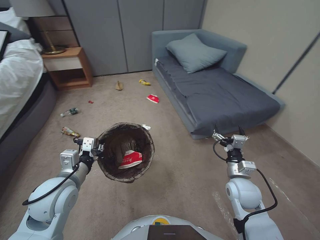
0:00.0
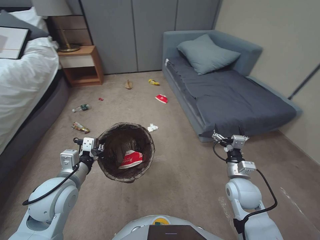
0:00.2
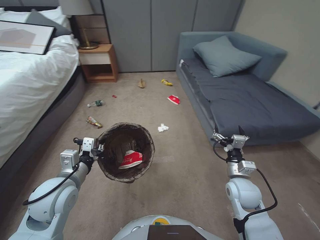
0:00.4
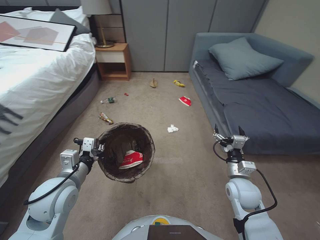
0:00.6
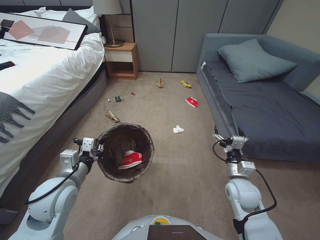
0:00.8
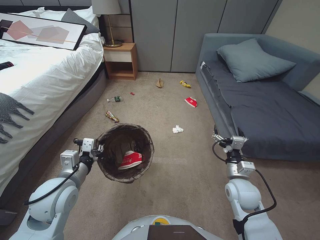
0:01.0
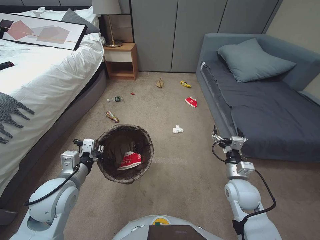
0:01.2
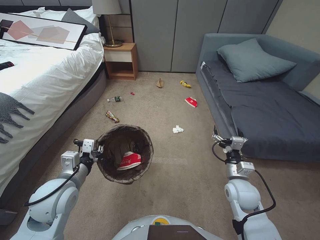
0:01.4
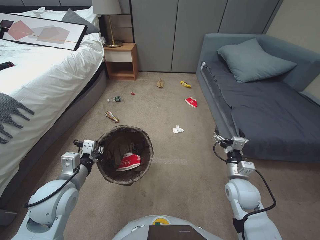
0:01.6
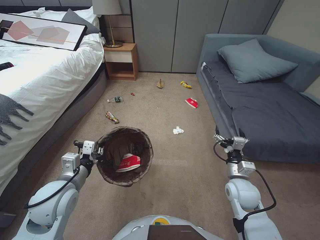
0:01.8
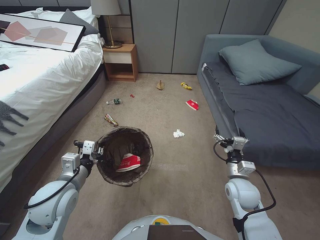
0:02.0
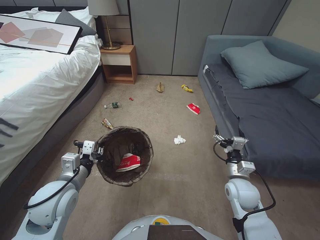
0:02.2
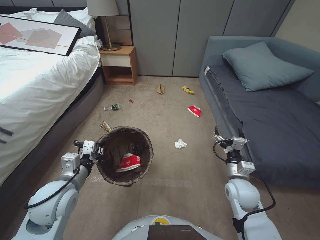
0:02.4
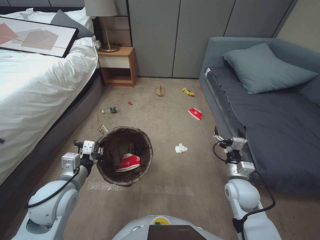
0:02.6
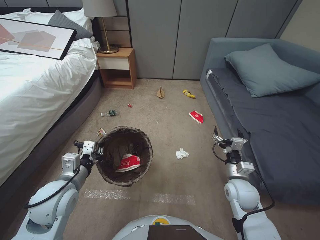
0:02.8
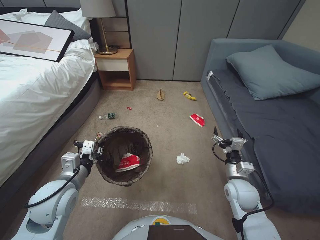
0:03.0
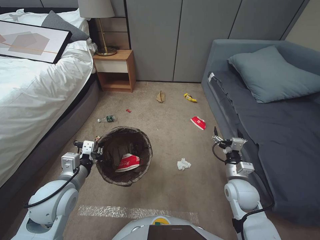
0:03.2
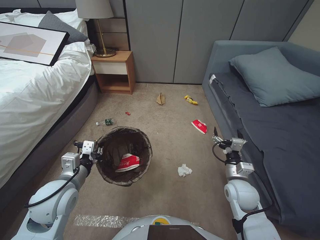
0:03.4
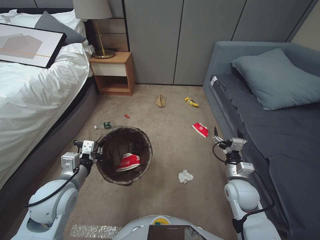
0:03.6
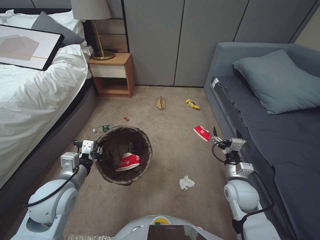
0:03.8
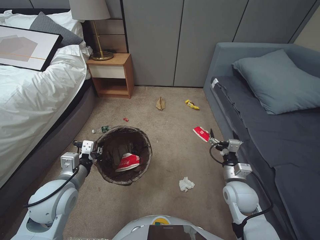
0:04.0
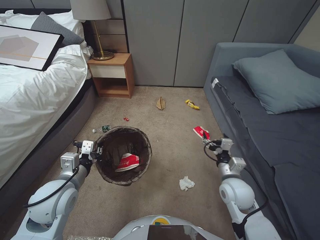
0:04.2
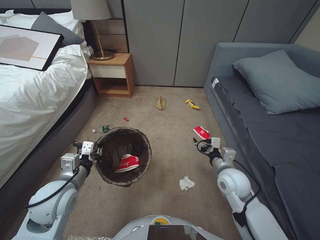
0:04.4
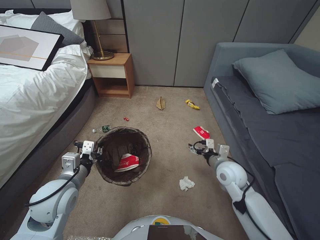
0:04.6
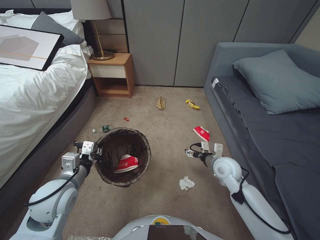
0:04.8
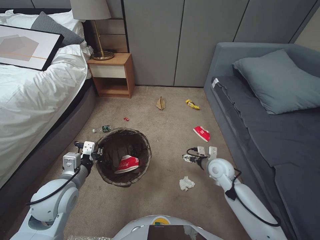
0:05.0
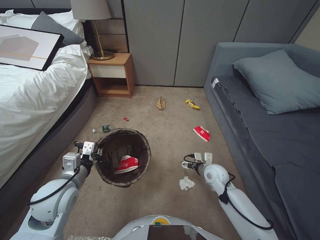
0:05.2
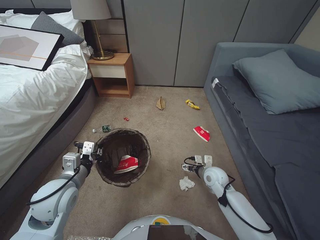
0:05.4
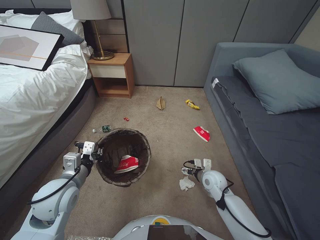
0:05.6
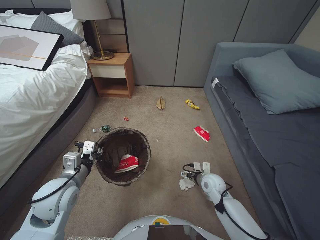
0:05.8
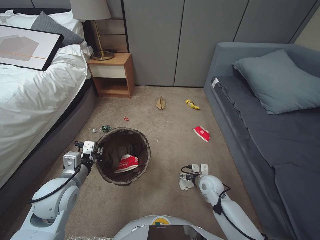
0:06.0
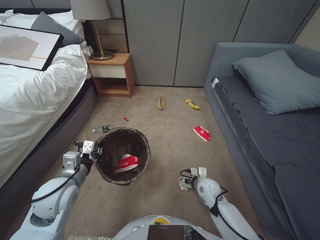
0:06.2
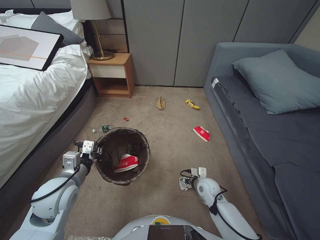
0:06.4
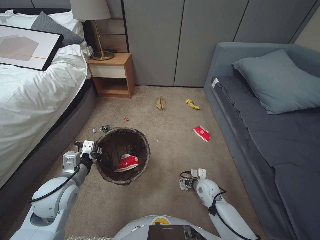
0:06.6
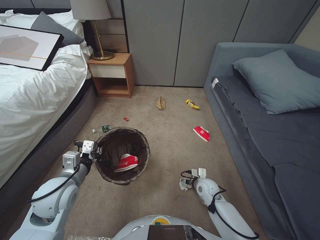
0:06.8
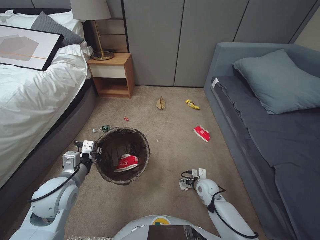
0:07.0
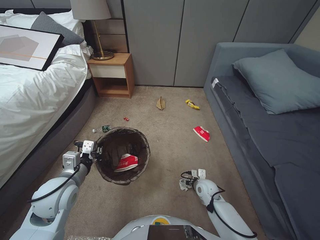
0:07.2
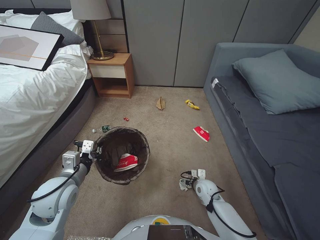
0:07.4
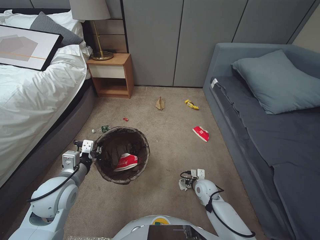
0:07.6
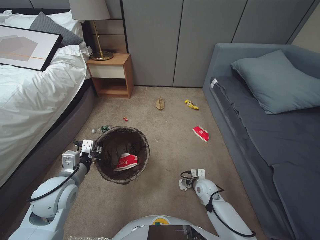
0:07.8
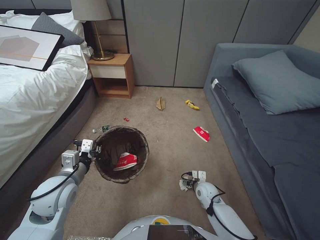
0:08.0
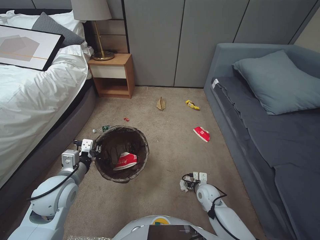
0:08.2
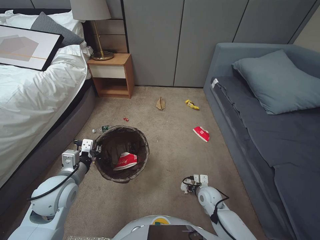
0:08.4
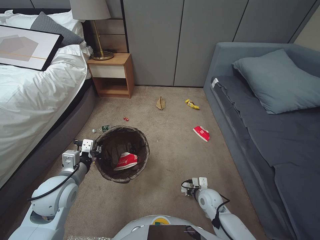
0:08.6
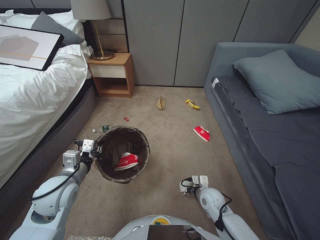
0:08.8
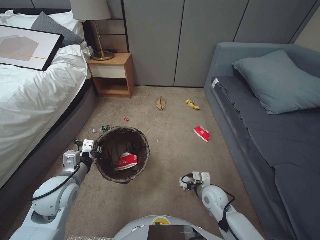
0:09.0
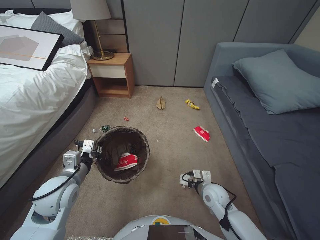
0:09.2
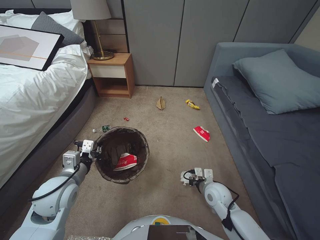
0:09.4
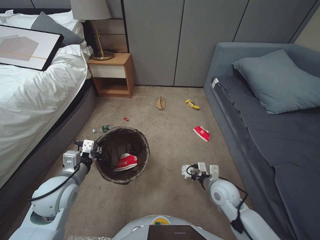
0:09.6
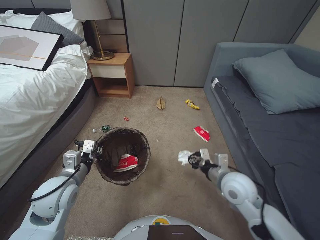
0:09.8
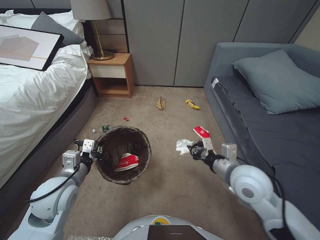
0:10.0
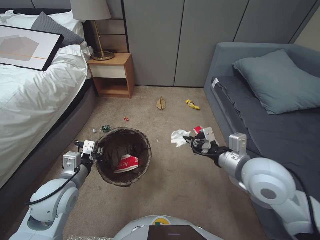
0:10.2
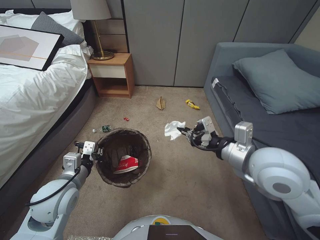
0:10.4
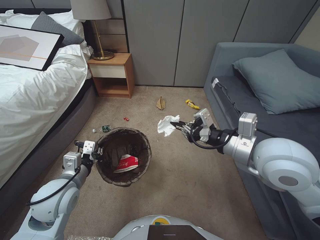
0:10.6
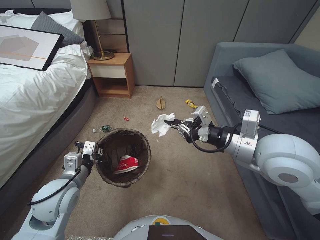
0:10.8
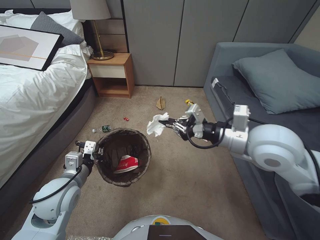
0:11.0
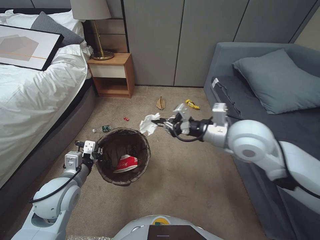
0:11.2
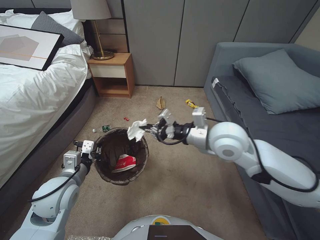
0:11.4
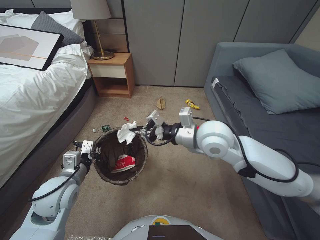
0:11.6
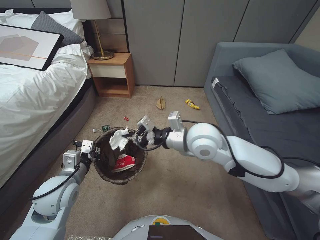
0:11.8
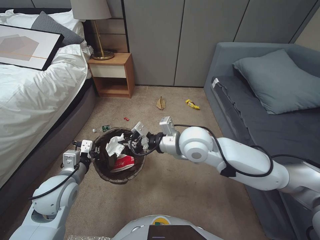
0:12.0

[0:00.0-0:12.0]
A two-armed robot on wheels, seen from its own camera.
Task of the whole recording: Pick up the trash bin, then pick up the garbage from the floor and place it into the trash bin.
0:03.0 to 0:04.4: The right gripper ends up approximately 5 cm from where it was.
0:04.4 to 0:06.0: The right gripper travels downward by about 15 cm.
0:06.0 to 0:07.6: The right gripper moves downward, some 5 cm.
0:07.6 to 0:09.0: The right gripper heads upward, covering about 5 cm, and closes up.
0:09.0 to 0:10.4: The right gripper moves upward, some 30 cm.
0:10.4 to 0:12.0: The right gripper shifts roughly 15 cm to the left and forward.

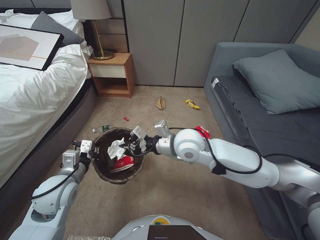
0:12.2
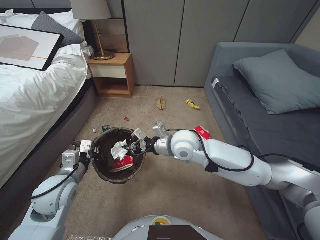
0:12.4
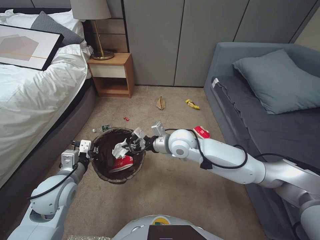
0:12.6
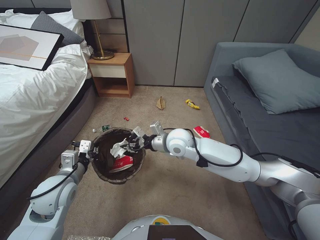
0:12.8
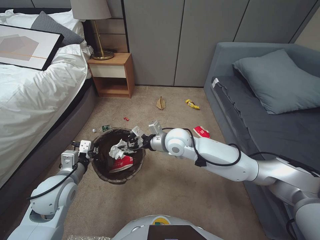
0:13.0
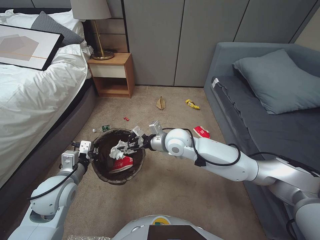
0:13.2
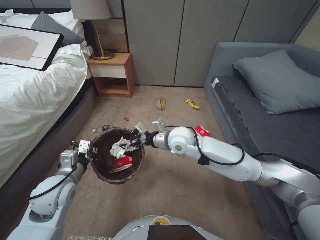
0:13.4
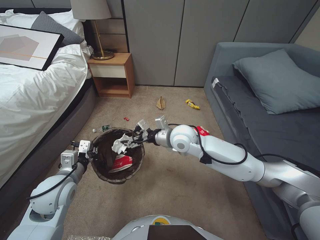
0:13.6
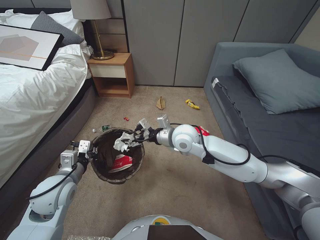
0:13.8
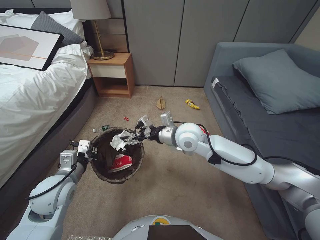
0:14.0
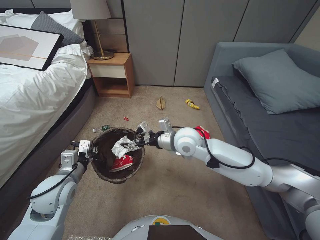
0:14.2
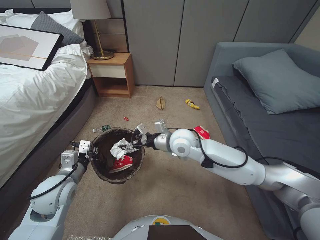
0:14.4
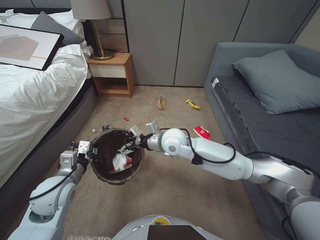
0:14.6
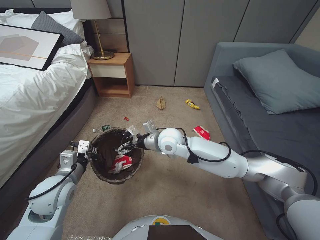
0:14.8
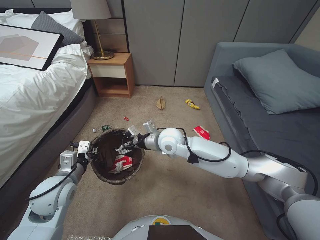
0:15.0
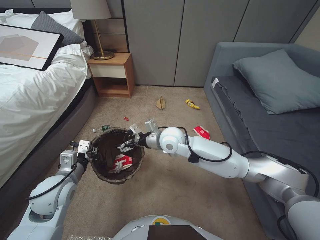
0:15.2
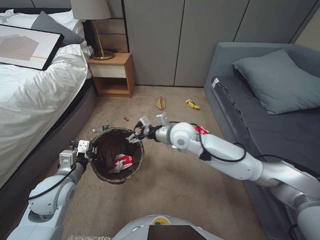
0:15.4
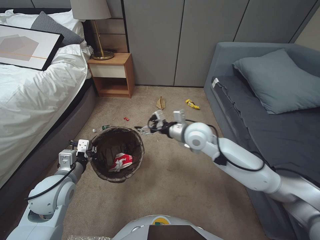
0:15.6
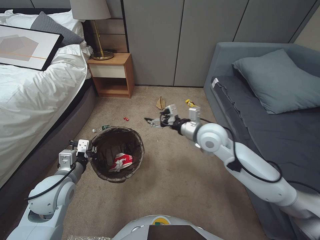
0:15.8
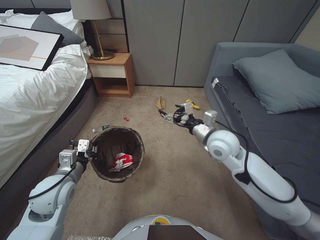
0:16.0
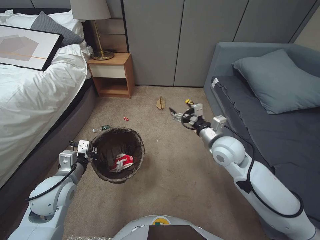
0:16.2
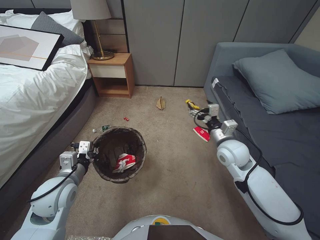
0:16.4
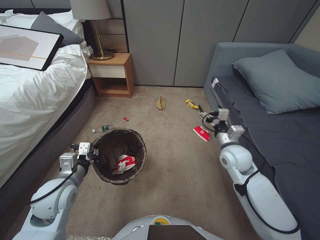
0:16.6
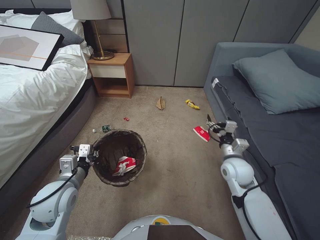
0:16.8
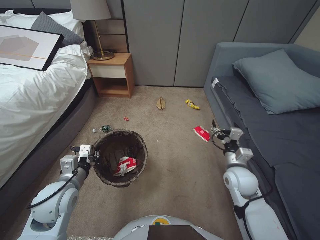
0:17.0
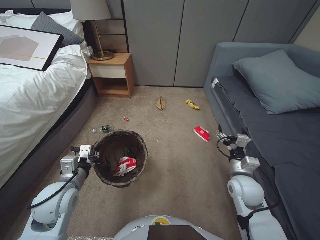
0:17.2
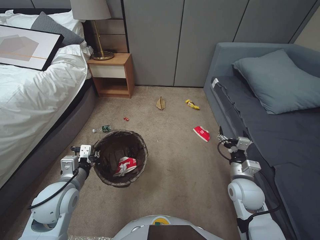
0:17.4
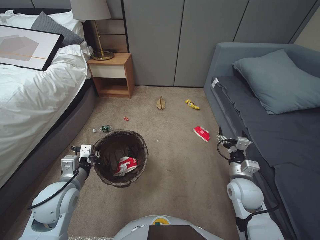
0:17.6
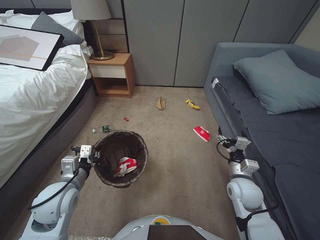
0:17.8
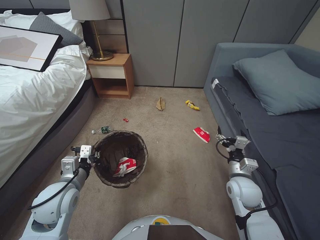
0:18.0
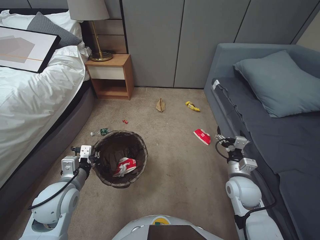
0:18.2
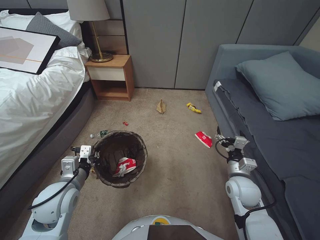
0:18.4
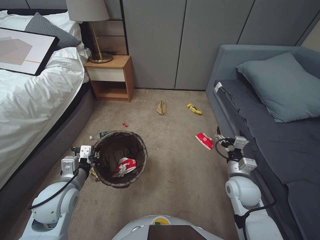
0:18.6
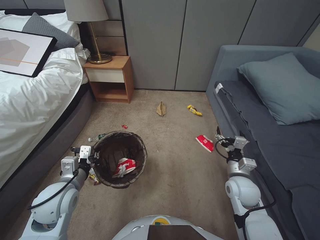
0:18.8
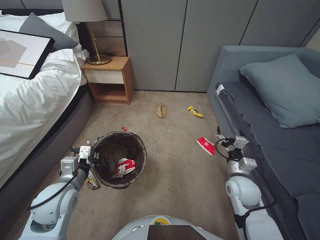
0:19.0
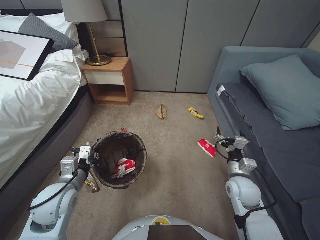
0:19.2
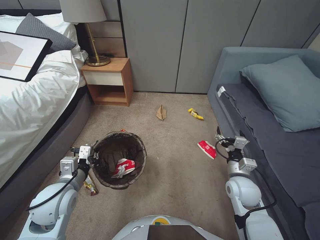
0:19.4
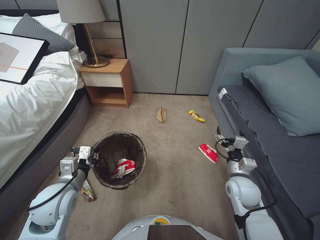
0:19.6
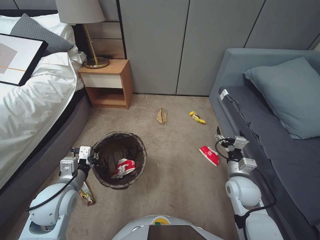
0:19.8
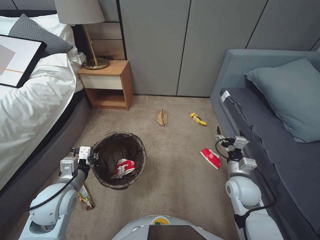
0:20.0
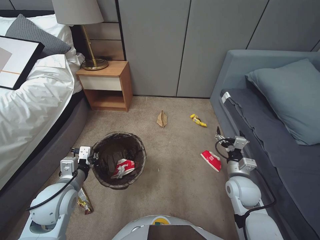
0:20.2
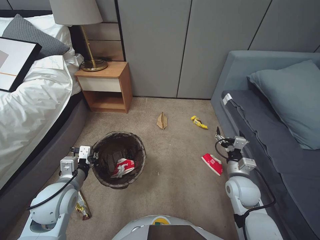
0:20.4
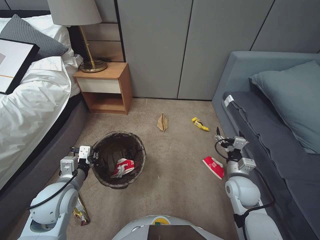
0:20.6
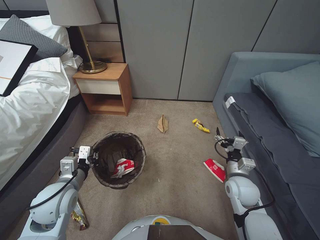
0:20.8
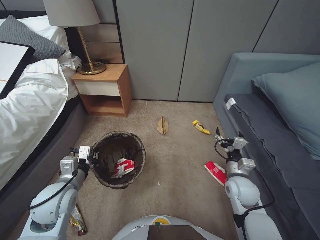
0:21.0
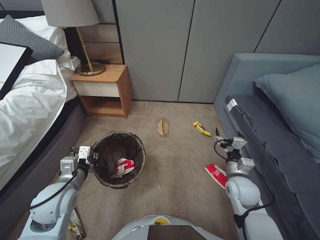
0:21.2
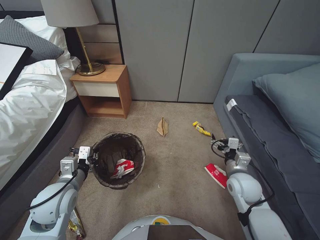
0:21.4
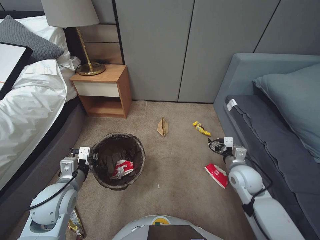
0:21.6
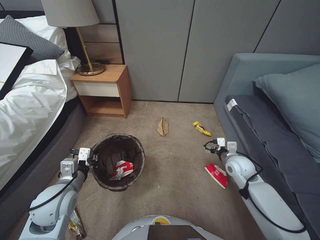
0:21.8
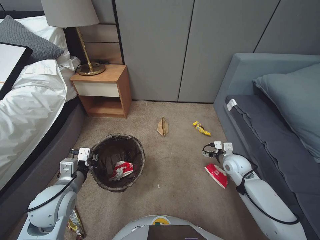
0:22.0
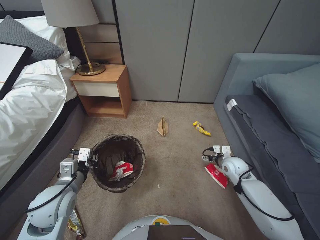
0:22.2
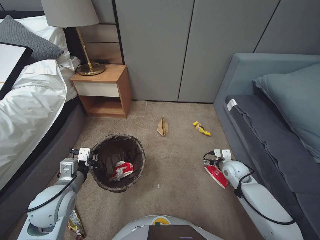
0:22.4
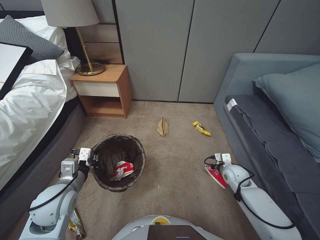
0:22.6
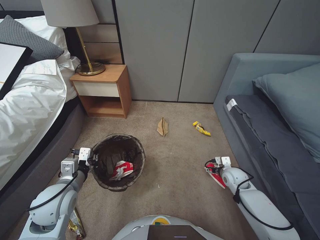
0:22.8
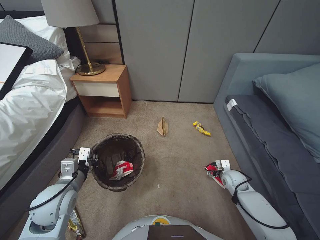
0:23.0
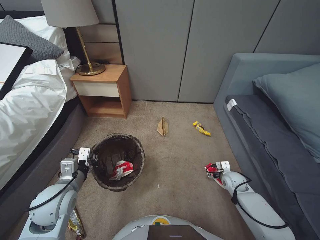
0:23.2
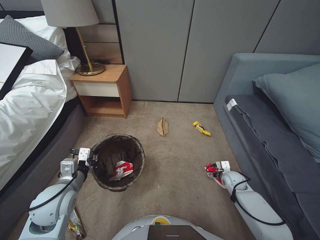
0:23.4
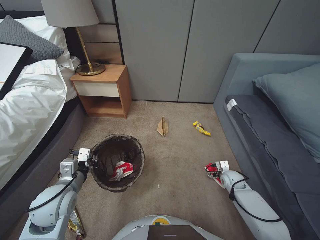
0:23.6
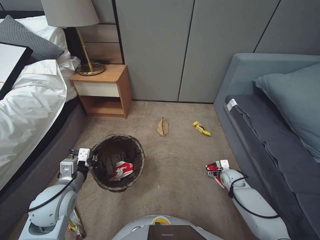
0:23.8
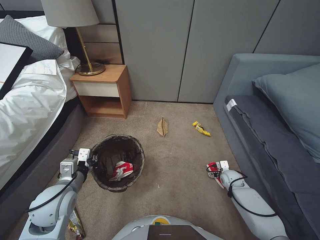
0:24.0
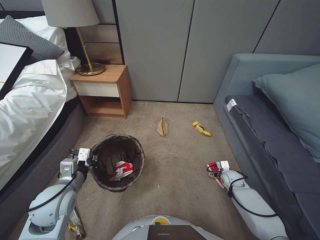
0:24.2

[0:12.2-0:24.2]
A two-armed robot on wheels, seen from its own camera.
Task of the whole recording: Pick up the trash bin, then pick up the garbage from the floor and place it into the trash bin.
0:12.2 to 0:13.8: The right gripper travels forward by about 5 cm, and opens up.
0:13.8 to 0:15.2: The grippers stay close to where they were, moving slightly.
0:15.2 to 0:16.6: The right gripper is displaced to the right by approximately 25 cm.
0:16.6 to 0:18.2: The right gripper goes about 15 cm backward and downward.
0:19.8 to 0:21.2: Both grippers stay put.
0:21.2 to 0:22.6: The right gripper goes approximately 10 cm forward and downward.
0:22.6 to 0:24.2: The right gripper heads downward, covering some 10 cm.
